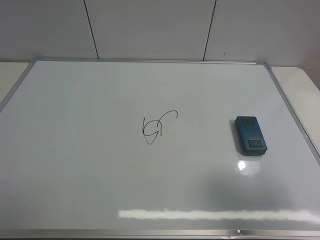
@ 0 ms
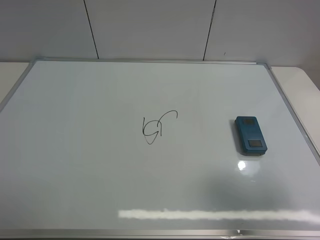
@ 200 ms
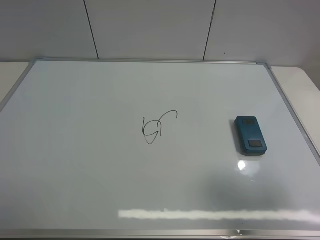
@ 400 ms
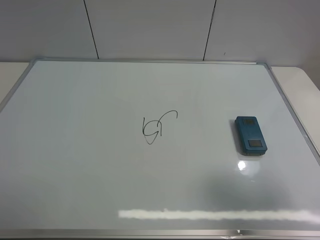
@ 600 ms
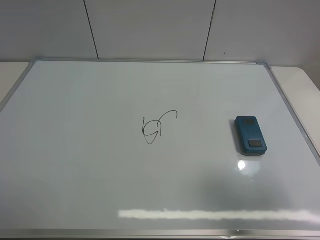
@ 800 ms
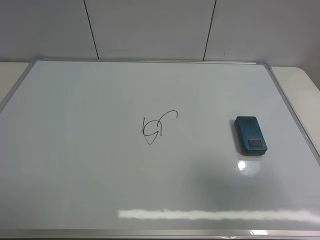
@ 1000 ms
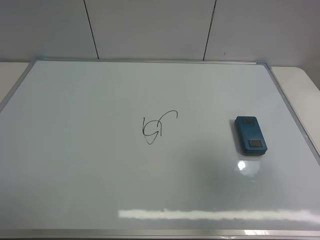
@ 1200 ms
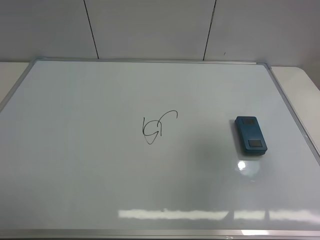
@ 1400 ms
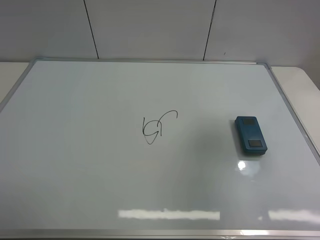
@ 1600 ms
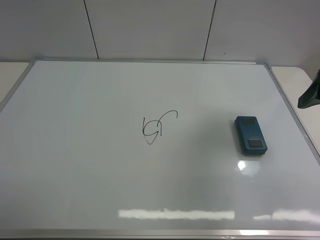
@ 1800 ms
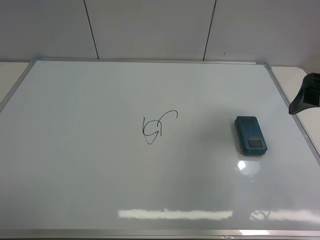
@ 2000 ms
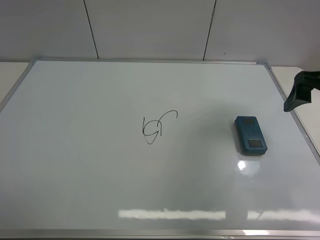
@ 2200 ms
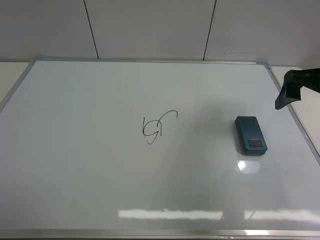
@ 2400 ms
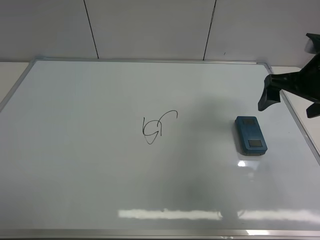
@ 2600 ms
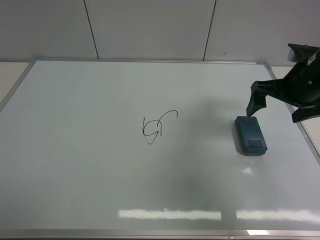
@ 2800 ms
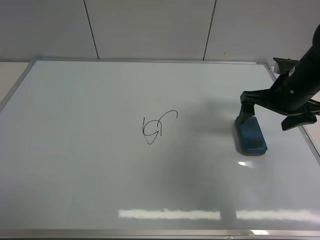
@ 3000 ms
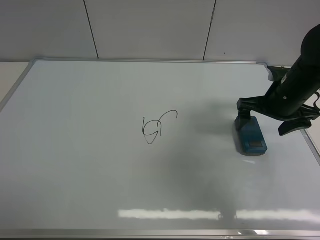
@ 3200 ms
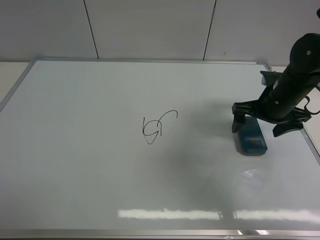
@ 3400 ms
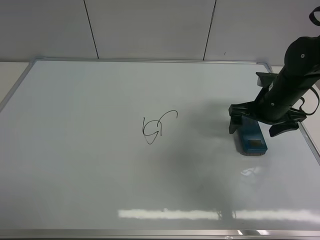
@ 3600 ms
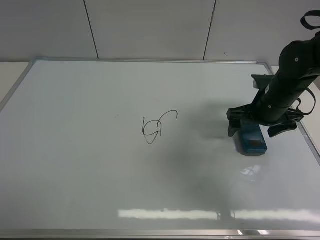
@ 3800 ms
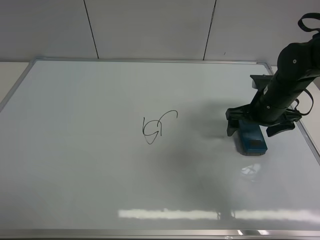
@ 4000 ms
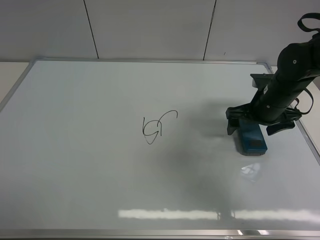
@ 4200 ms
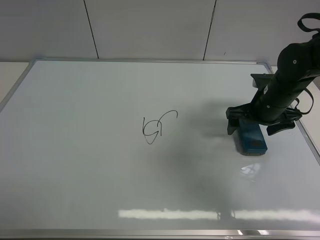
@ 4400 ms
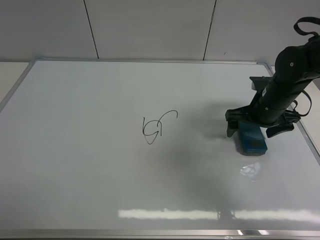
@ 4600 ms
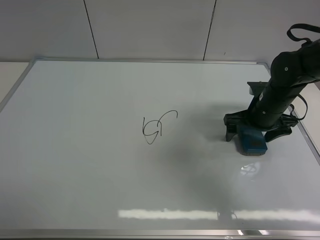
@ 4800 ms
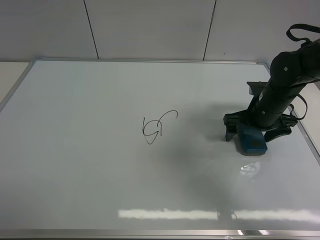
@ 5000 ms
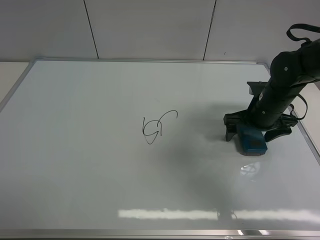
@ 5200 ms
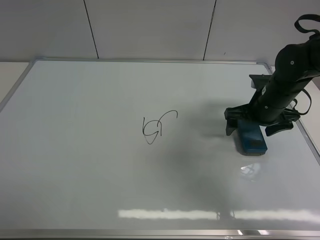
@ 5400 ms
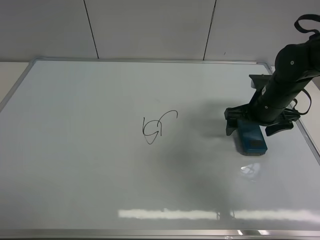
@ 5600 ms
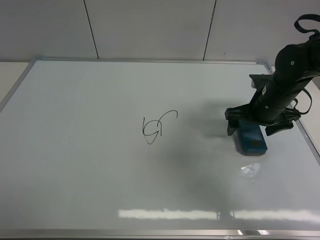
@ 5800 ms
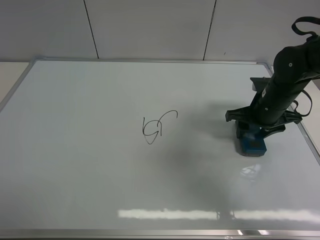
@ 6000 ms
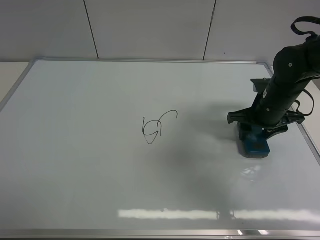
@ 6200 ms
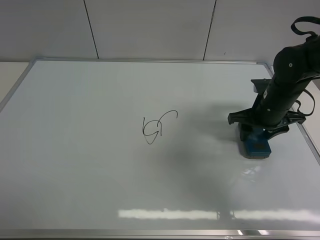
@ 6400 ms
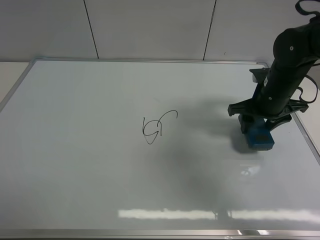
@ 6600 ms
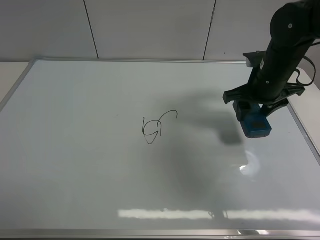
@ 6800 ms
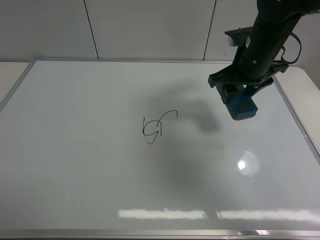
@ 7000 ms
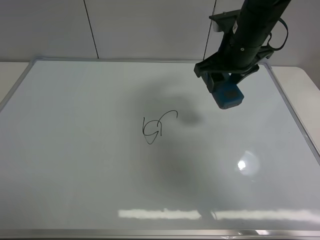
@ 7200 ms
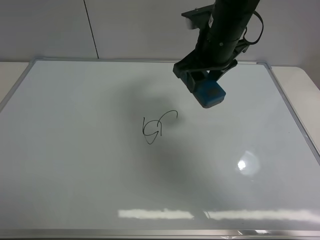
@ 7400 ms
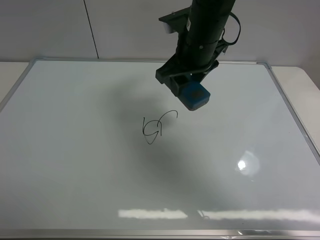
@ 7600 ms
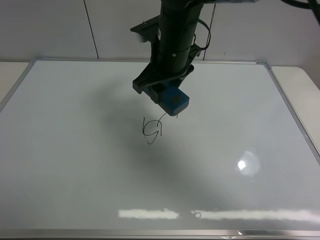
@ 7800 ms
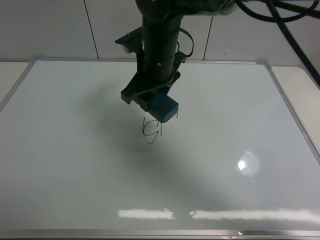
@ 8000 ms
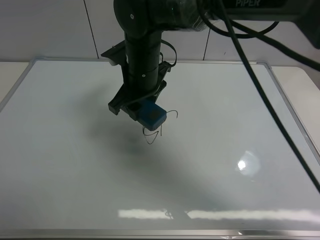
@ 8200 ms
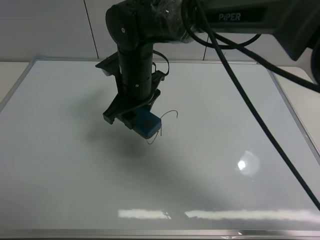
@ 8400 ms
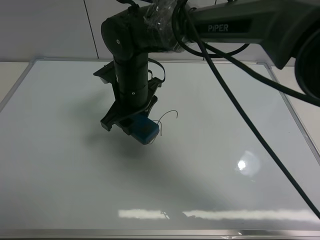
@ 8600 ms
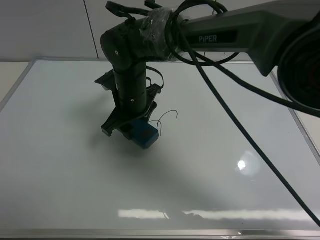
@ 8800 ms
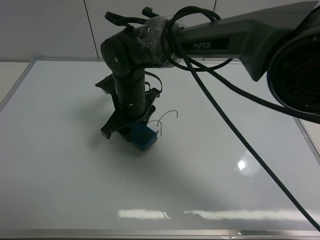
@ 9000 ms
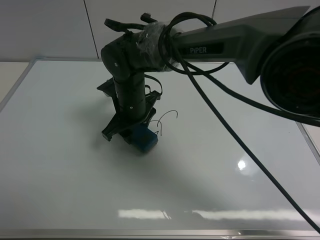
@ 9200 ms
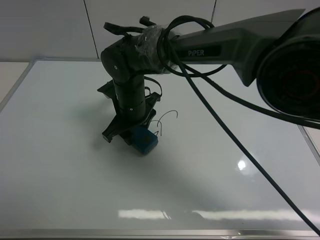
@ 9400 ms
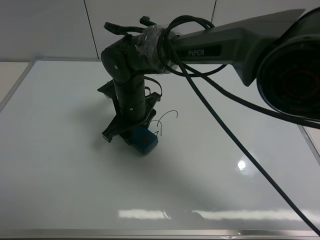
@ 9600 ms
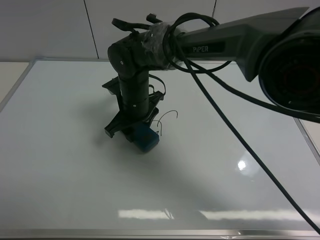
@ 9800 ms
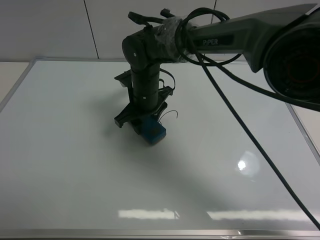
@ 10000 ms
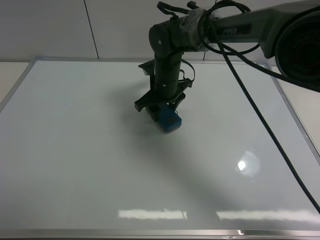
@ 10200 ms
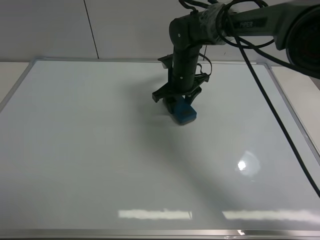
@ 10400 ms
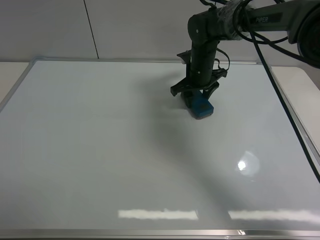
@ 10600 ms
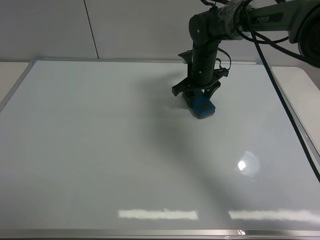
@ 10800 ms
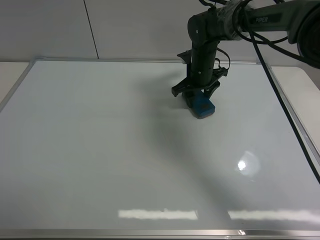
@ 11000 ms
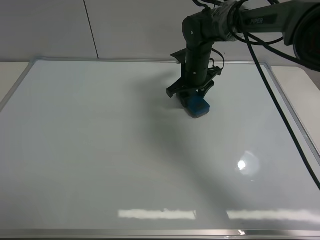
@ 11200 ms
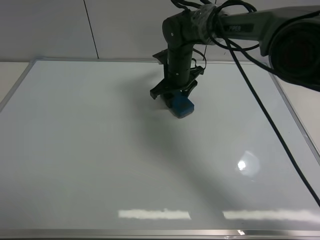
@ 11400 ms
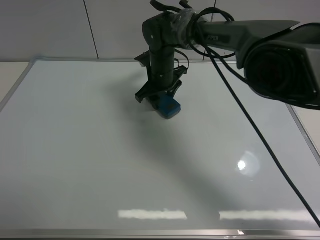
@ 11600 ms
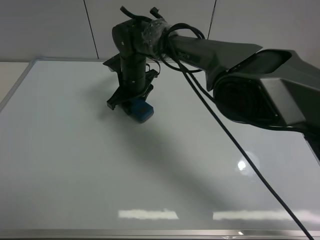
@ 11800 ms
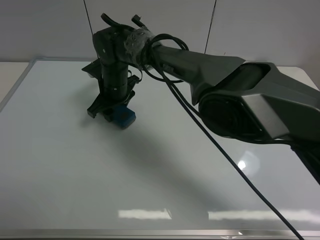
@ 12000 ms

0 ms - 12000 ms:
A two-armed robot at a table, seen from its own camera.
Task of the whole recording: use the right gripper to pick up the board eraser, wipe the notes on the whiteboard clean, and then put them back in place.
Step, 0 ms - 6400 ms: Pick up the board eraser with right gripper.
0 ms - 1600 ms: The right gripper travels forward by approximately 15 cm.
1600 ms - 3000 ms: The right gripper goes about 20 cm forward and downward.
3000 ms - 4400 ms: The right gripper travels downward by some 5 cm.
4400 ms - 6000 ms: The right gripper closes its fingers.
6000 ms - 7600 ms: The right gripper is displaced to the left and upward by roughly 20 cm.
7600 ms - 9000 ms: The right gripper shifts about 15 cm to the left and downward.
9000 ms - 10400 ms: The right gripper heads to the right and forward, covering about 15 cm.
10400 ms - 12000 ms: The right gripper shifts about 15 cm to the left.

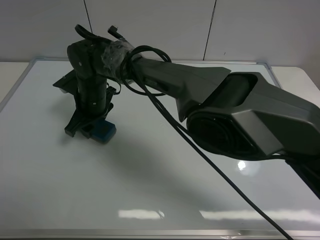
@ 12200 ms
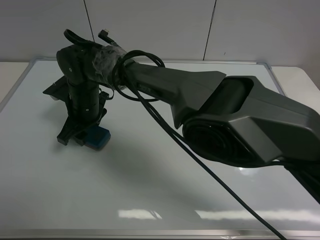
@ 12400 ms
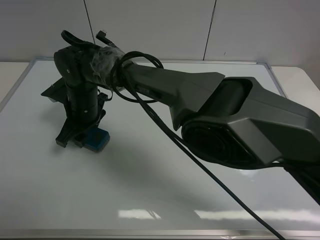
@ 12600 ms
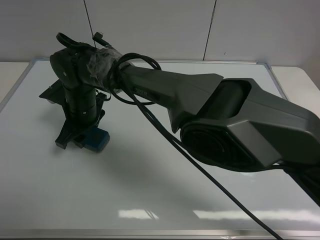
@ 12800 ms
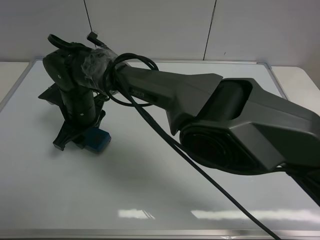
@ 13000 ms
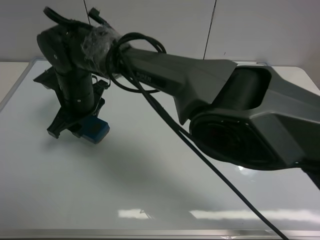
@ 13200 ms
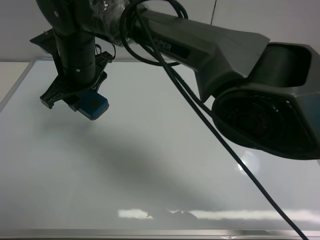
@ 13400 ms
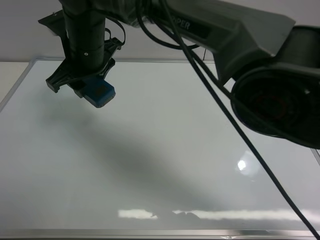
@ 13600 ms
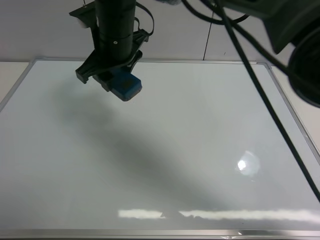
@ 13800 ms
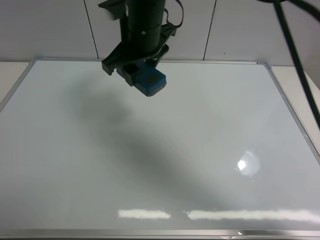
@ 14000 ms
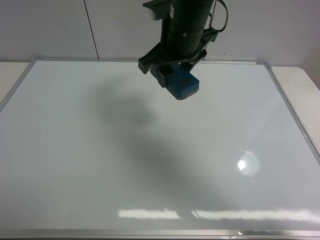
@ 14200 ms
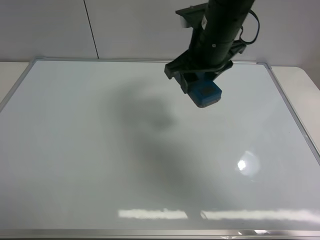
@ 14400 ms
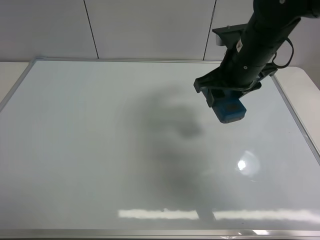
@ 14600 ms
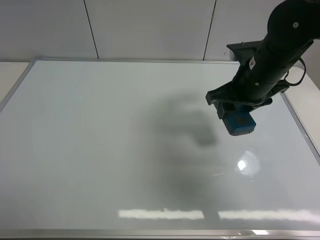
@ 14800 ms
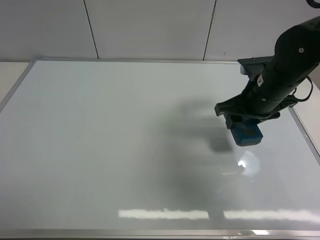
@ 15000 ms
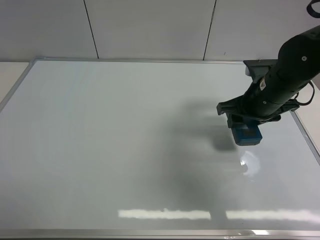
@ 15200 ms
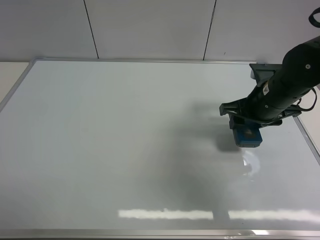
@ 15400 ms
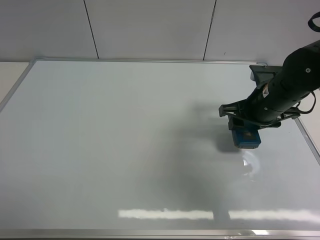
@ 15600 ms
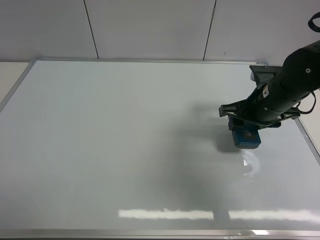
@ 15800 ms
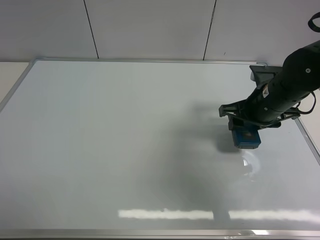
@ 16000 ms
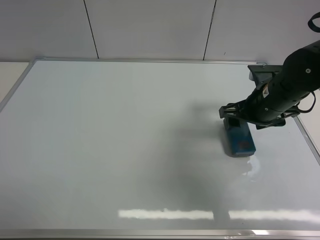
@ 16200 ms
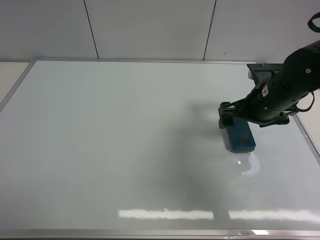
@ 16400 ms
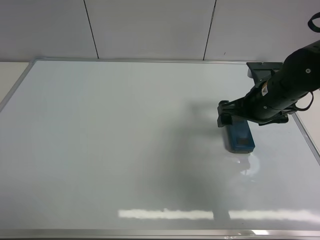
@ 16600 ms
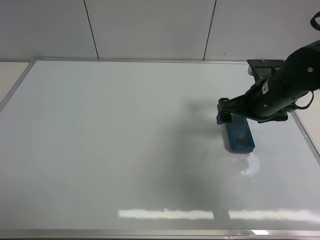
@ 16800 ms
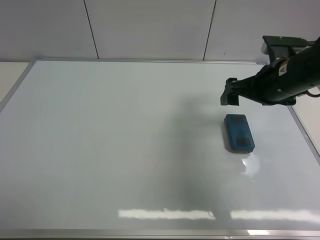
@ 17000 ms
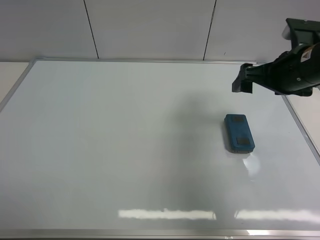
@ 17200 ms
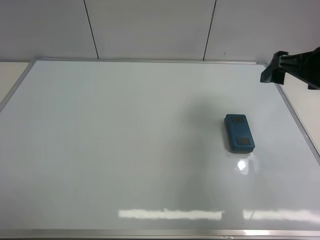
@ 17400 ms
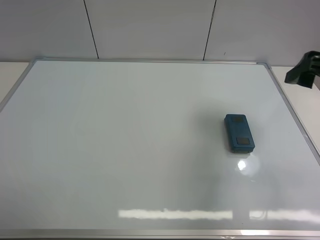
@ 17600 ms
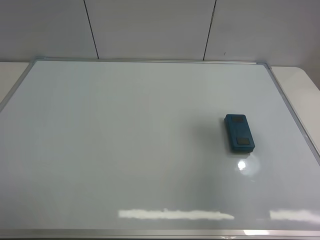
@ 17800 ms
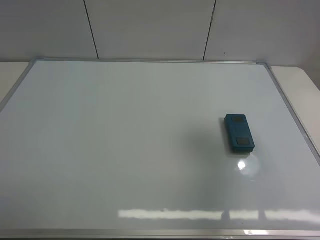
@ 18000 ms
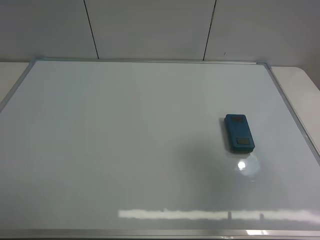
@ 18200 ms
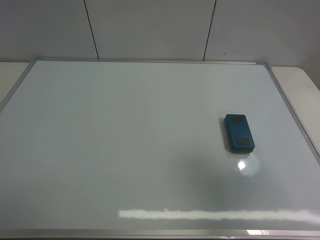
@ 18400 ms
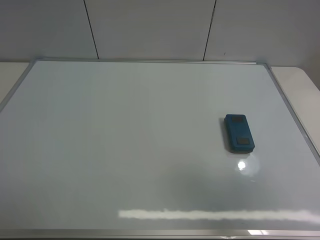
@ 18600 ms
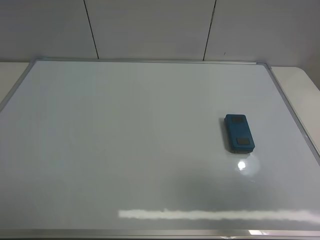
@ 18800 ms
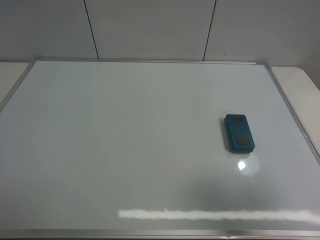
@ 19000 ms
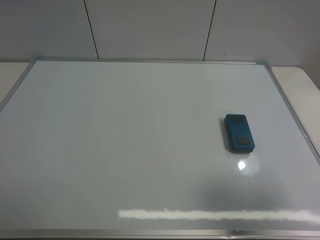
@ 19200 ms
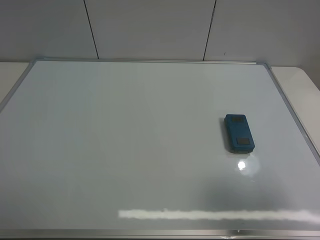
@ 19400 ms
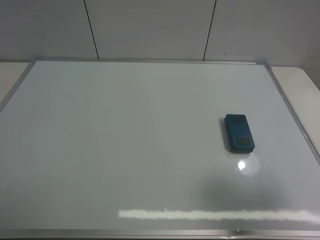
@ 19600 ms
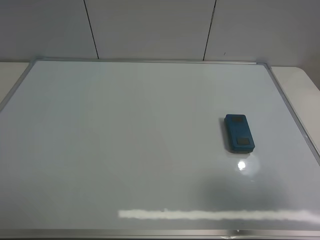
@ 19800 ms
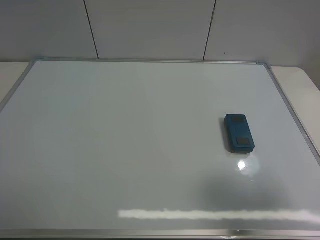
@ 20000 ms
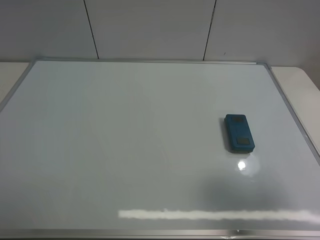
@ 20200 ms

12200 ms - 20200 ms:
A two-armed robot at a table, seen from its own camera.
Task of the whole recording: use the right gripper to pick up the board eraser, wipe the notes on the whiteboard clean, and then put them back in place.
Step, 13000 ms - 16200 ms: Place the board eraser on the right side of board with right gripper.
12200 ms - 13800 ms: The right gripper shifts approximately 15 cm upward and to the right.
13800 ms - 15400 ms: The right gripper travels to the right by approximately 30 cm.
15400 ms - 17000 ms: The right gripper opens its fingers.
17000 ms - 18600 ms: The right gripper moves backward and upward, approximately 30 cm.
18600 ms - 20200 ms: The right gripper is displaced downward by approximately 5 cm.
